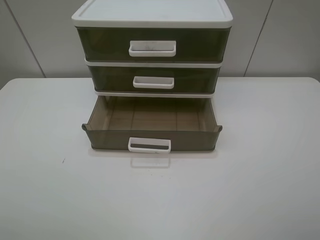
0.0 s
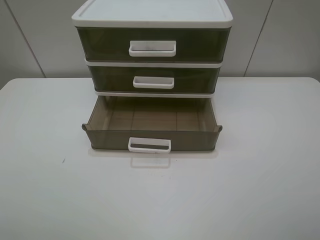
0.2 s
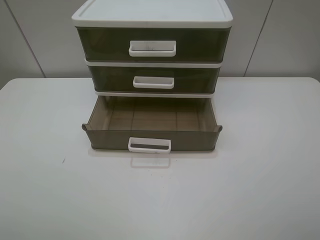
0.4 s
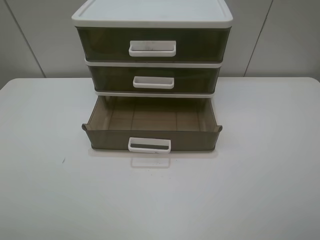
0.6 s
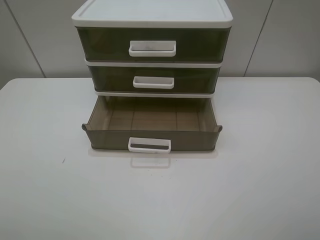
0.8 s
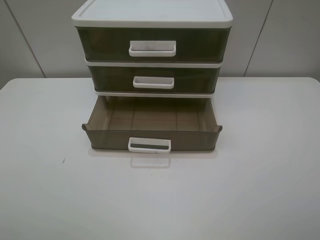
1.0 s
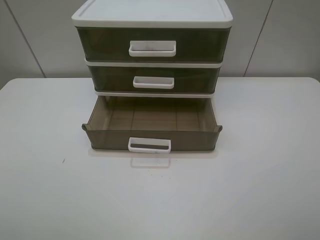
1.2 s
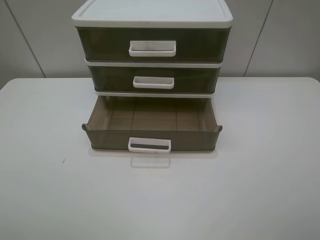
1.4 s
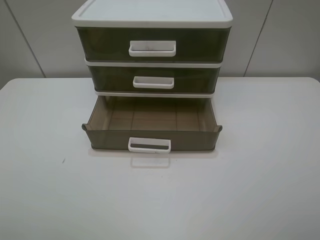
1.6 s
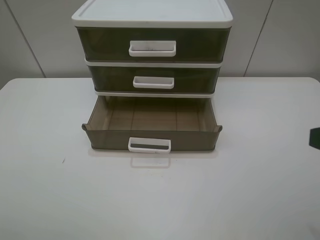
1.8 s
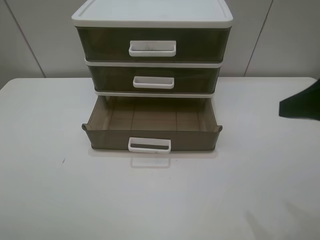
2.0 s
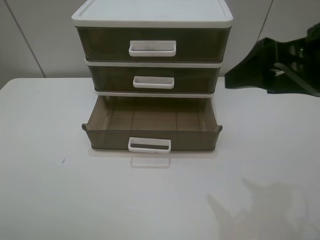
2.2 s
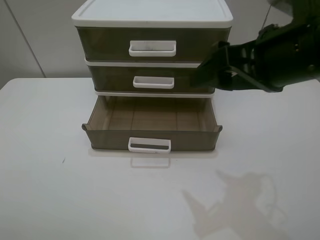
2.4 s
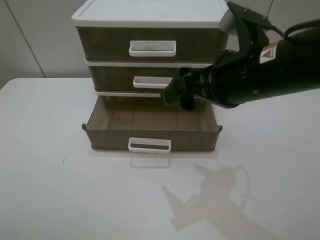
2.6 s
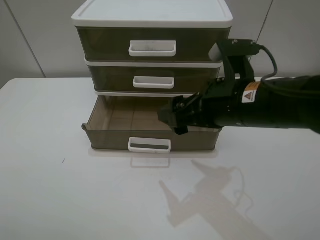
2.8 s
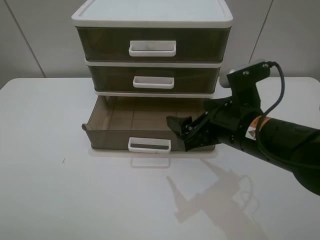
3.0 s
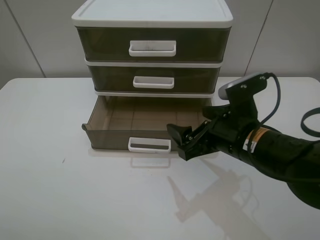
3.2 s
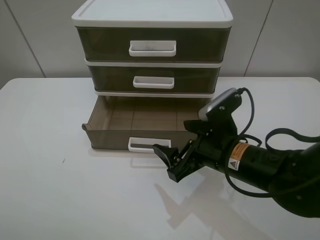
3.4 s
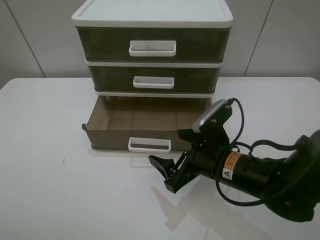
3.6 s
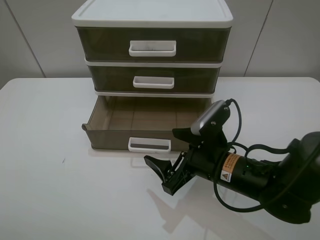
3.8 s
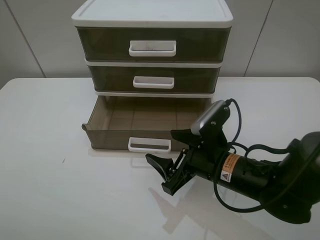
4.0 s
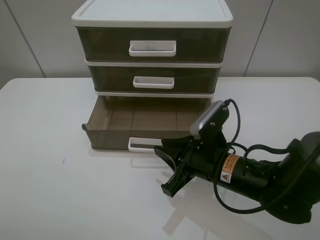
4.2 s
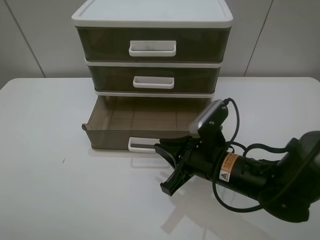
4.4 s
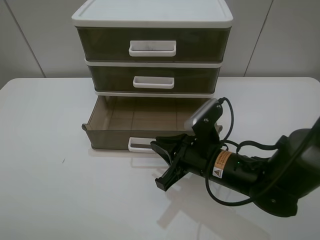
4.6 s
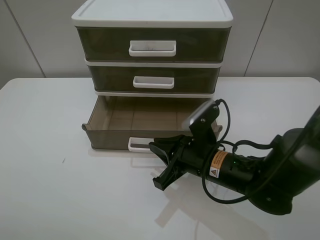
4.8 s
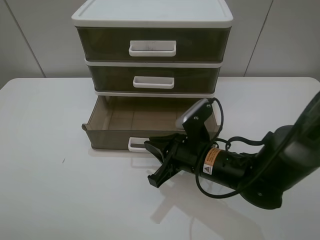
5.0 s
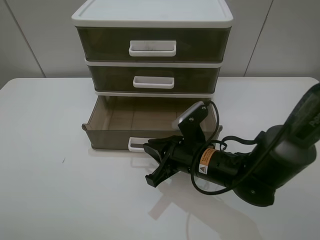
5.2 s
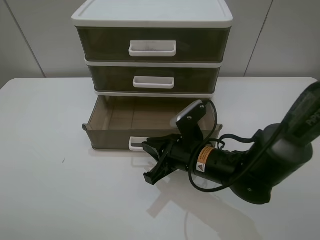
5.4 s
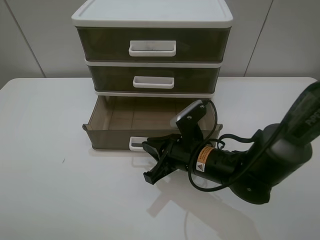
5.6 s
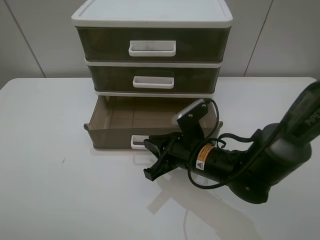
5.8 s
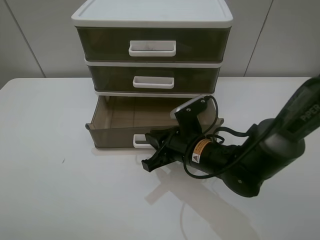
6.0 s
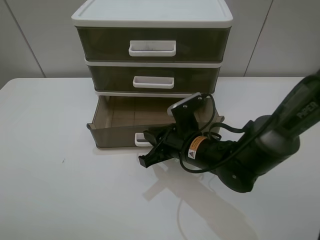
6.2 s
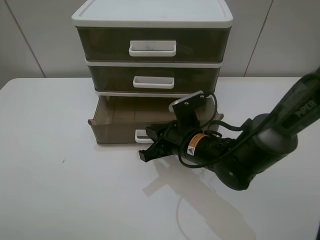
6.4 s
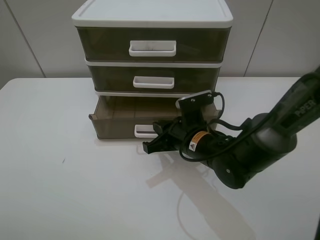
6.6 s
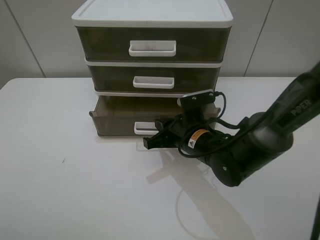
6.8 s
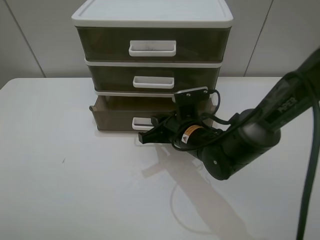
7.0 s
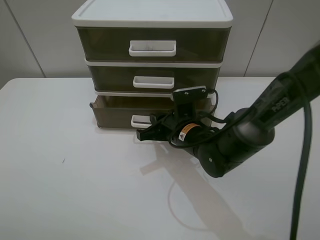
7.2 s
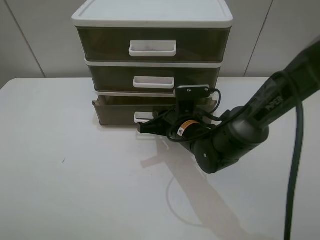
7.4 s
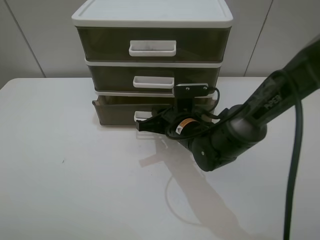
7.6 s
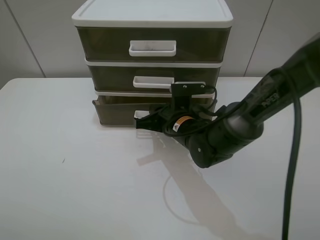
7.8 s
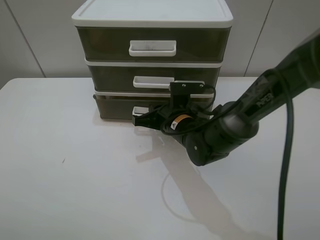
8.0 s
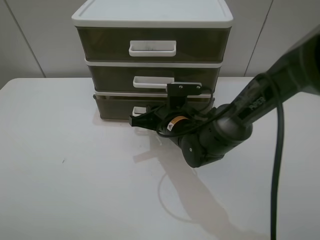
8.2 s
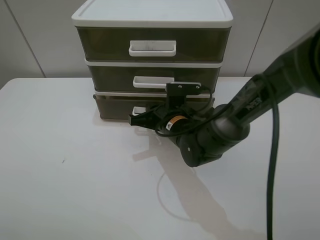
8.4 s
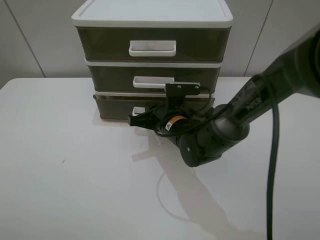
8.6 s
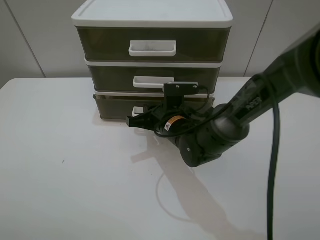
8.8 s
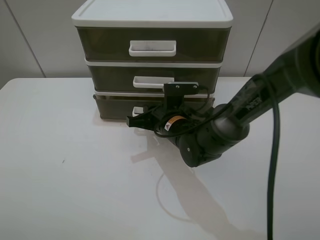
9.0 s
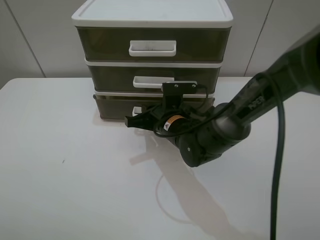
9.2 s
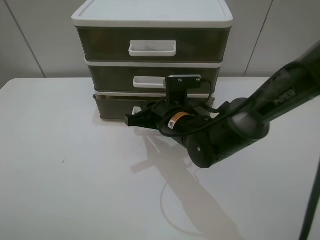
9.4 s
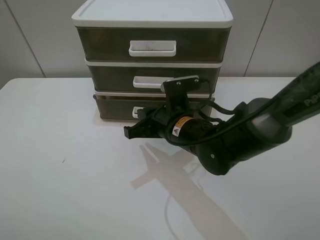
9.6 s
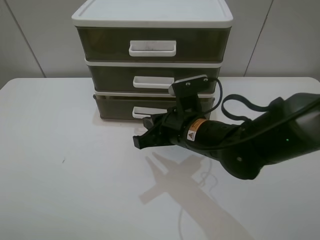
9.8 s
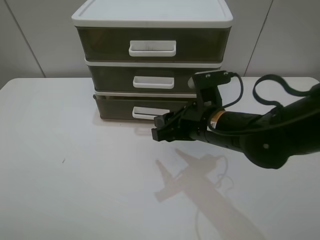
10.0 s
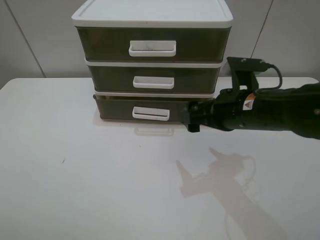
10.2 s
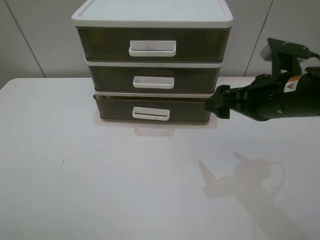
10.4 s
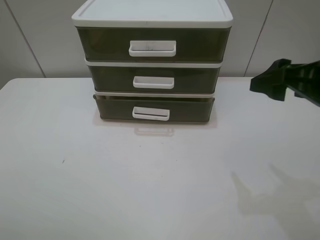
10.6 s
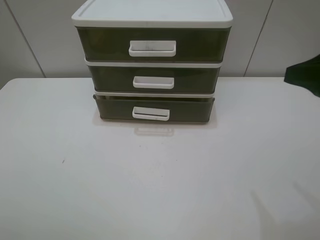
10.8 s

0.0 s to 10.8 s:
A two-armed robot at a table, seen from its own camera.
Task of the whole recording: close the bottom drawer.
Step, 0.0 to 6.4 s: Use the right gripper to contact the bottom layer of the storage cabinet.
Step, 6.6 to 8.6 s: Push the bottom drawer closed.
1.6 to 3.0 s: The right gripper moves forward, to the left and downward, approximately 25 cm.
3.0 to 4.6 s: The right gripper moves downward, roughly 10 cm, and closes up.
4.6 to 6.2 s: The right gripper ends up approximately 5 cm from where it was.
6.2 to 7.8 s: The right gripper heads forward, covering roughly 5 cm.
7.8 to 9.2 s: There are only small adjustments of the grippers.
9.2 to 10.8 s: The right gripper goes about 35 cm to the right, upward and backward, and opens up.

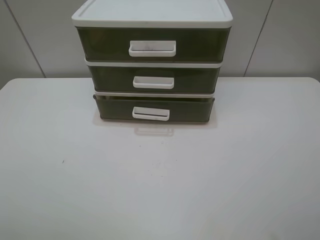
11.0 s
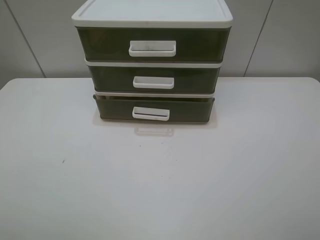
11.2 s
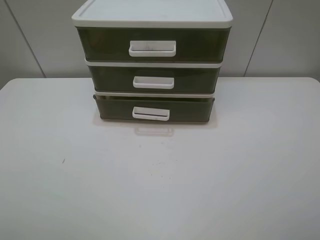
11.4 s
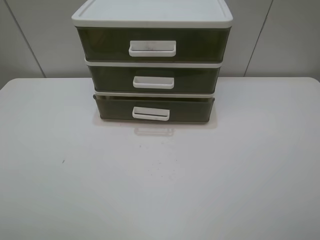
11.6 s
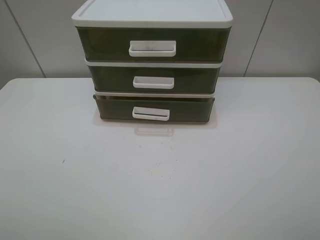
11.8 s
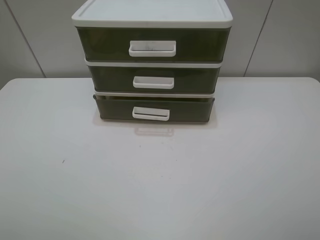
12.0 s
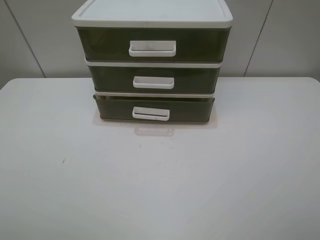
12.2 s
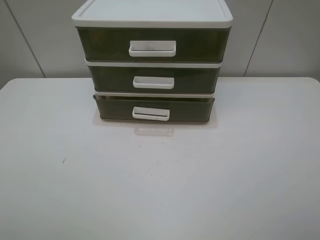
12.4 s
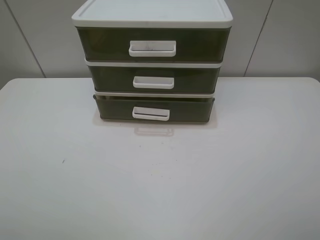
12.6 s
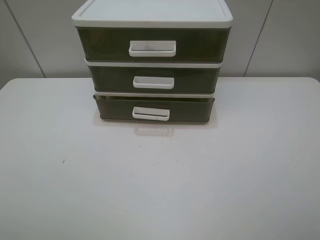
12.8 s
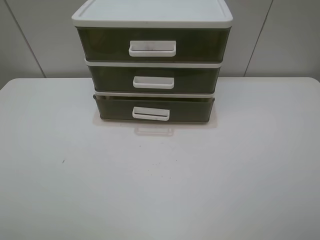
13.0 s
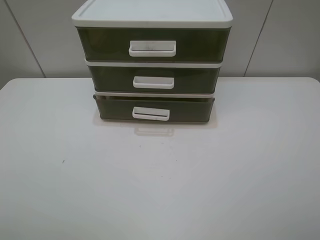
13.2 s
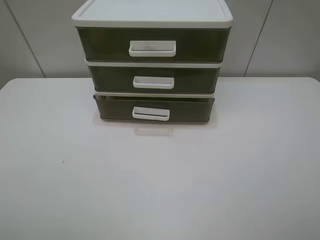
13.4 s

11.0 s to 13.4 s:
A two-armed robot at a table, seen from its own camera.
Task of the whole recording: close the bottom drawer.
12.2 to 13.4 s: Both grippers stay put.
